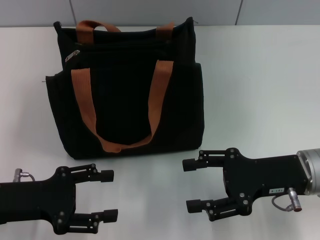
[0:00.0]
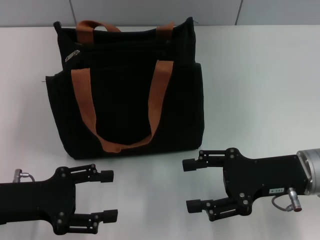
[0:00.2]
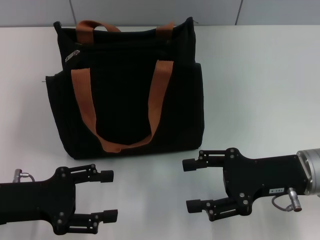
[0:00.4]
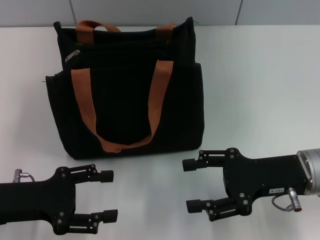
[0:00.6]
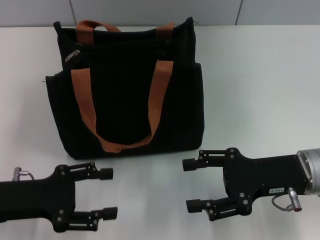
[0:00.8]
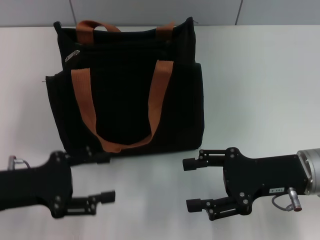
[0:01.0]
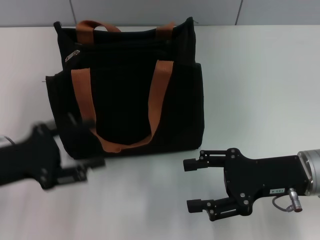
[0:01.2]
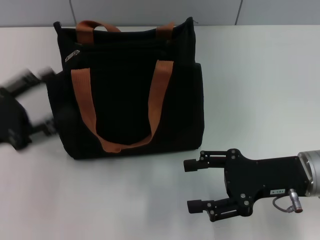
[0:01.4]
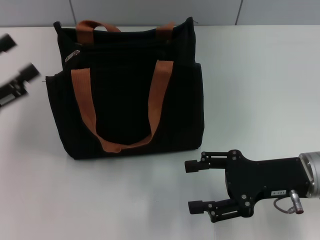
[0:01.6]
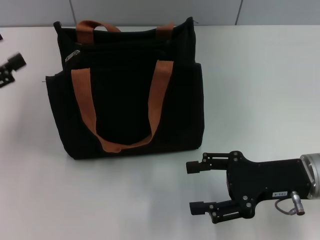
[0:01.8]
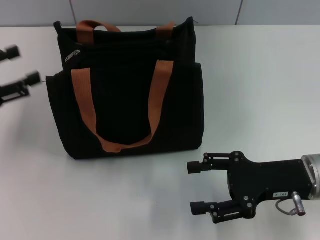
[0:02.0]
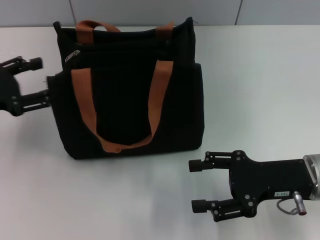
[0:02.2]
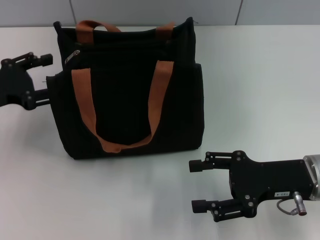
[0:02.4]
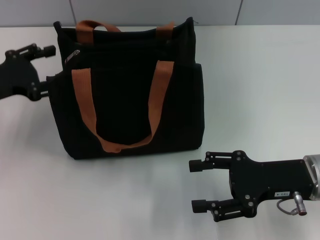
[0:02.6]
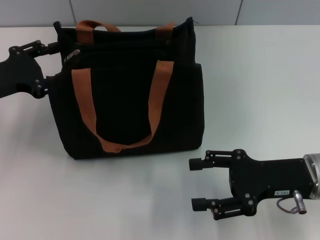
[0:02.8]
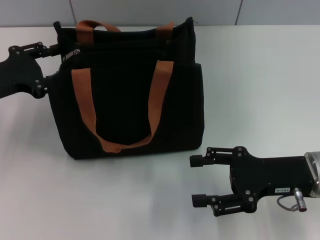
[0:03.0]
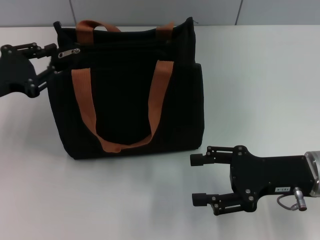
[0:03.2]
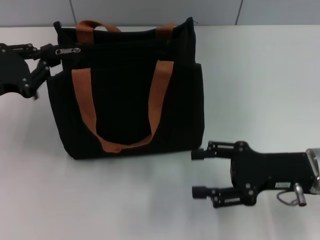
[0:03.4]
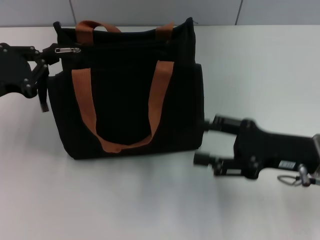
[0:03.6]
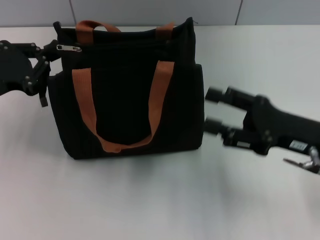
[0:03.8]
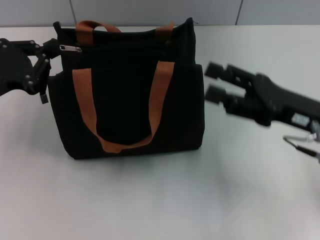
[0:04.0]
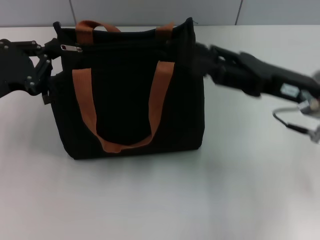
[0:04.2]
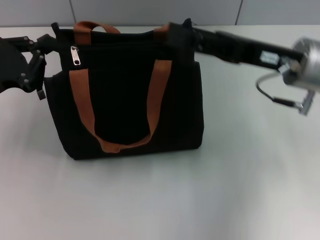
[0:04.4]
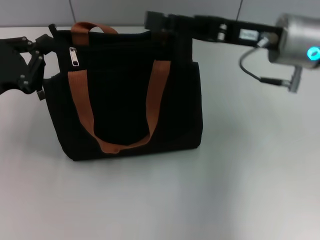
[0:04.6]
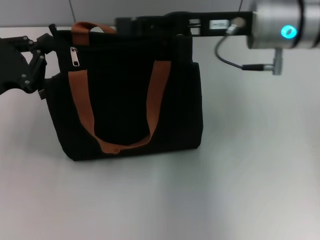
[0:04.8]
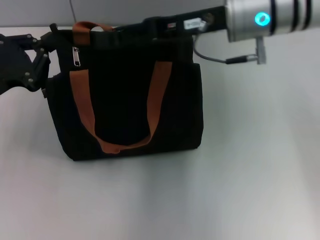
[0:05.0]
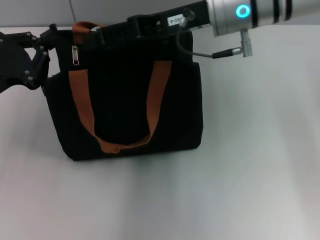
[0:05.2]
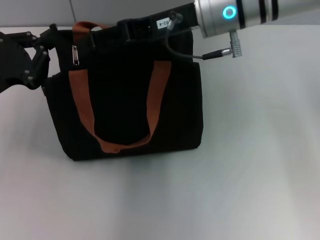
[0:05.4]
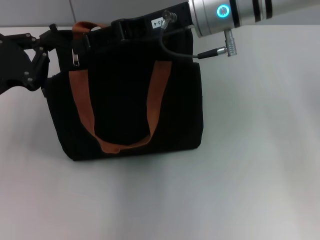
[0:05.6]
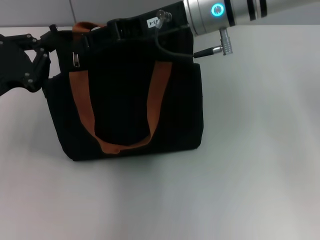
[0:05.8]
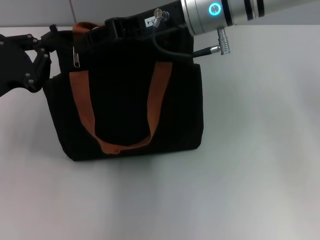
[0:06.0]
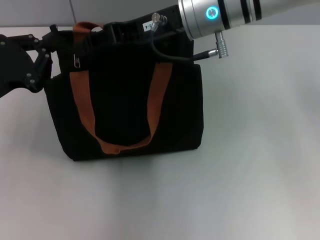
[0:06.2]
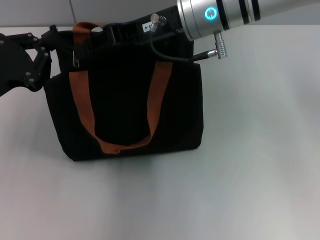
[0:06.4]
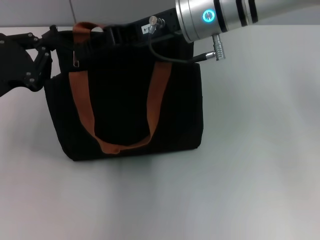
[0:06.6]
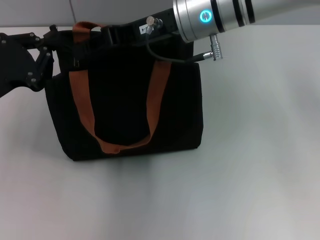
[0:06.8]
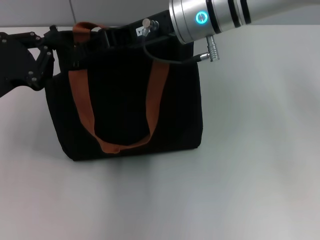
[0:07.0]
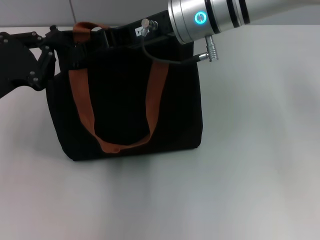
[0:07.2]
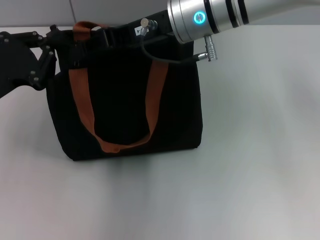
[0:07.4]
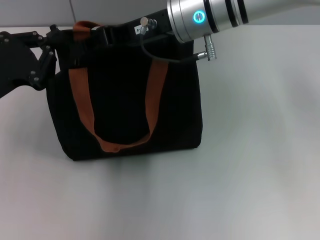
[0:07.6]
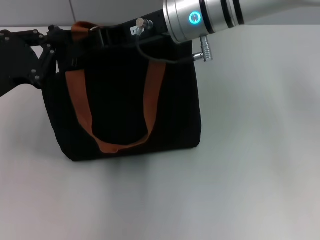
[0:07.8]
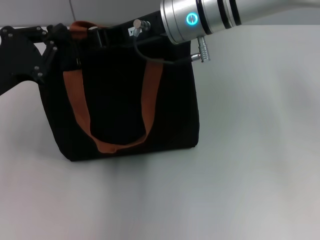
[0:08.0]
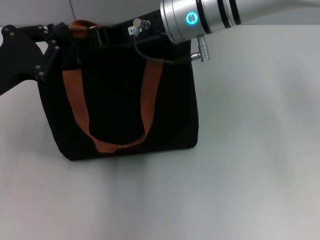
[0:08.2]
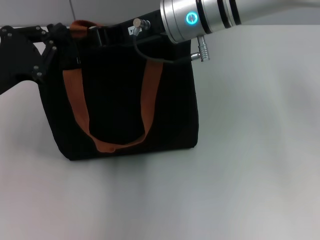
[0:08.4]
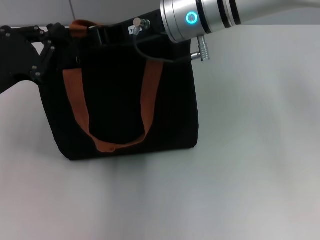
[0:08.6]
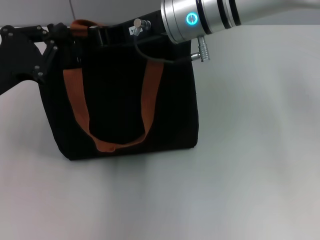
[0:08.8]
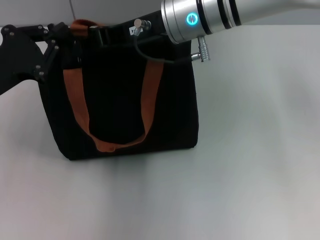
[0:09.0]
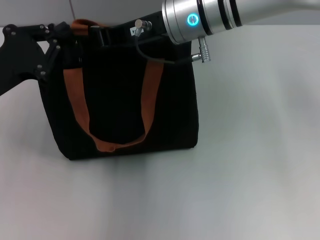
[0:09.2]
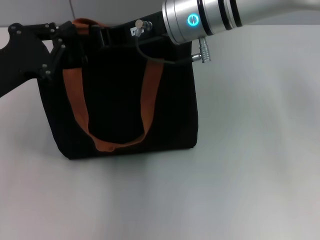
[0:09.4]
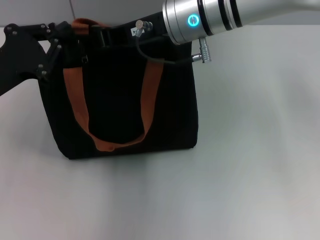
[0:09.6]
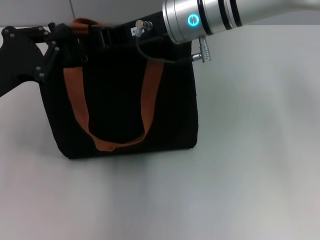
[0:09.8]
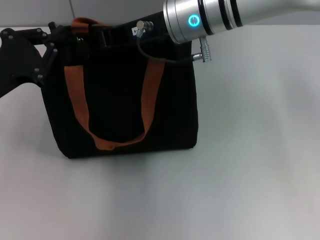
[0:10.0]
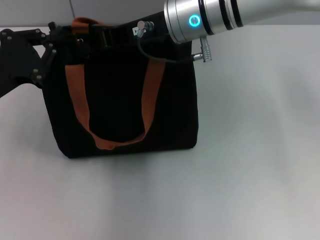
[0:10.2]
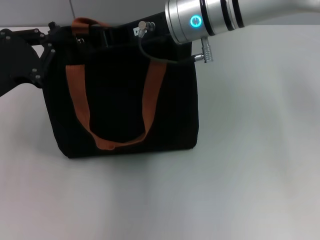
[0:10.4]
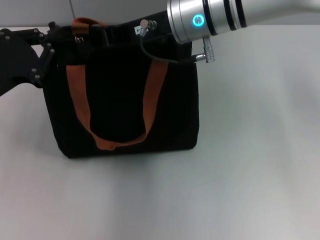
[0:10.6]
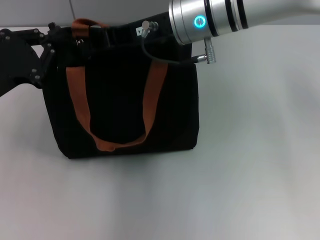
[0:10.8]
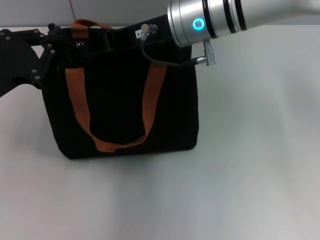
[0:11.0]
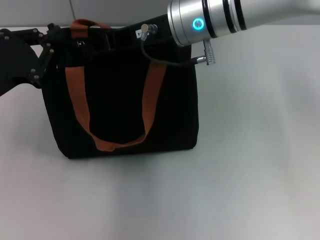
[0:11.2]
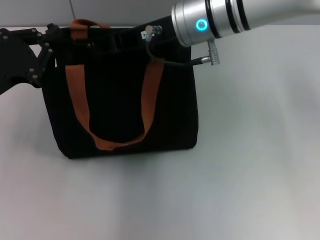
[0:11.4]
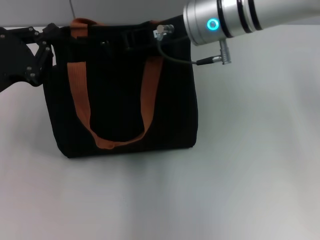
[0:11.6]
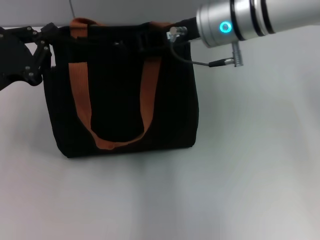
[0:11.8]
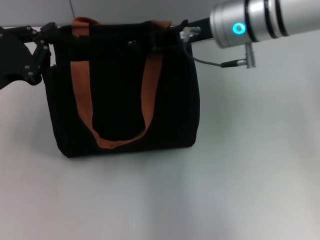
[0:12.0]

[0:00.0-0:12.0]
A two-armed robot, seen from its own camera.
0:00.0 to 0:01.6: The left gripper moves to the left and upward, some 10 cm.
0:01.6 to 0:03.0: The left gripper moves forward, some 10 cm.
0:03.0 to 0:04.4: The right gripper goes about 10 cm upward and forward. Meanwhile the left gripper closes up.
0:04.4 to 0:06.0: The right gripper moves to the left, forward and upward, approximately 15 cm.
0:06.0 to 0:07.6: The grippers stay close to where they were, moving slightly.
0:07.6 to 0:09.0: The two grippers keep their place.
0:09.0 to 0:10.4: Both grippers stay put.
0:10.4 to 0:12.0: The right gripper shifts some 5 cm to the right.

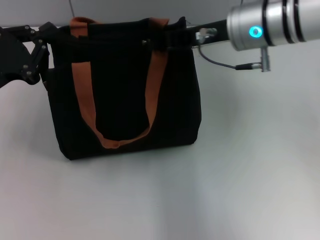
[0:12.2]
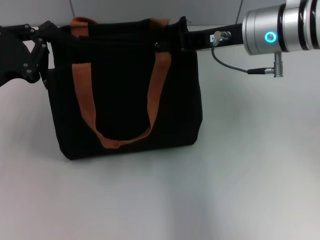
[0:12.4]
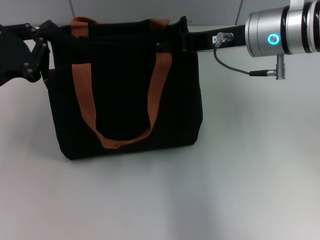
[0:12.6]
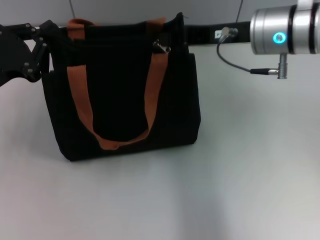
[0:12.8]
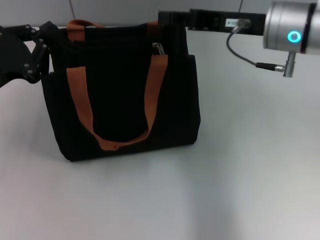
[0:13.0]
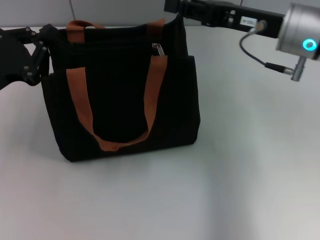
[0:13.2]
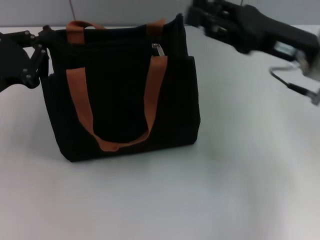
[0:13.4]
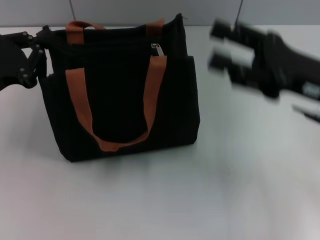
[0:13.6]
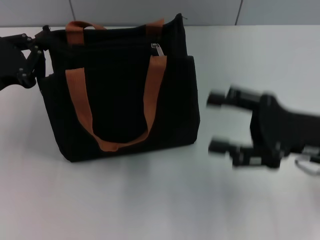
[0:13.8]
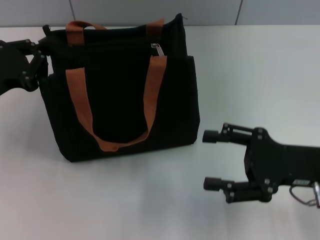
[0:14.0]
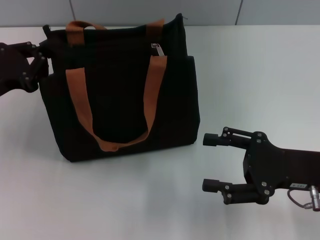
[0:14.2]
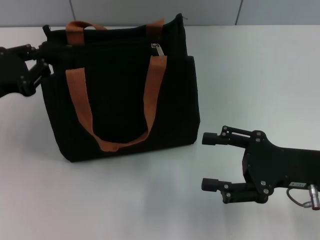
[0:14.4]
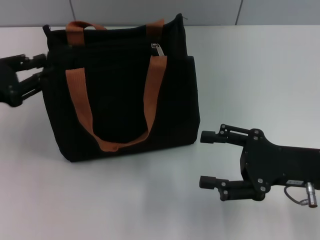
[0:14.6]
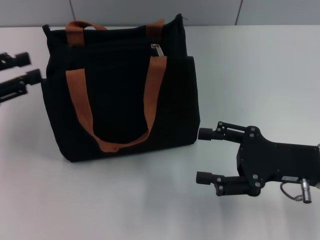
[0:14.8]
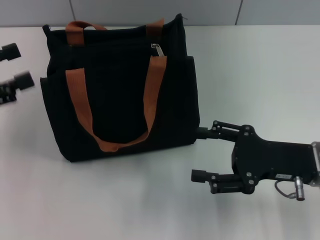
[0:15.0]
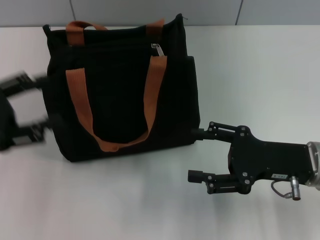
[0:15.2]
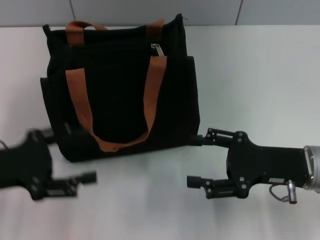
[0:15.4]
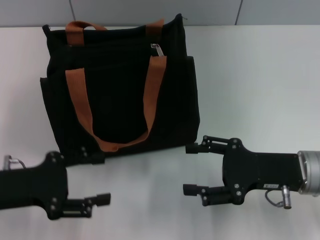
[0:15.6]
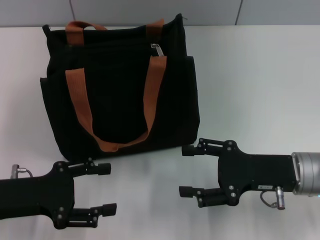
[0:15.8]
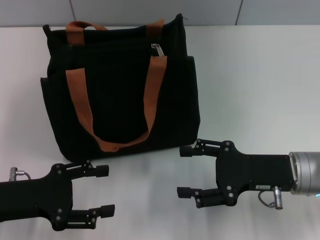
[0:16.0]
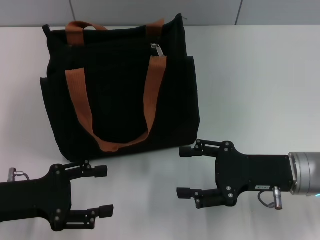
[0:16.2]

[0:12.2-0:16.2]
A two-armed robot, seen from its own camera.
Step, 0:13.0 to 0:14.6: Grab the zipper with your left hand.
0:12.2 to 0:13.6: The right gripper travels to the right and backward by approximately 15 cm, and opens its fingers.
0:13.6 to 0:14.8: The right gripper travels downward by about 5 cm, and opens. The left gripper ends up approximately 5 cm from where it was, and opens up.
0:14.8 to 0:16.2: The left gripper goes about 15 cm downward, to the right and backward, and opens.
